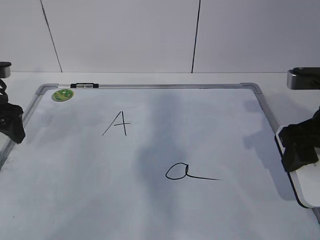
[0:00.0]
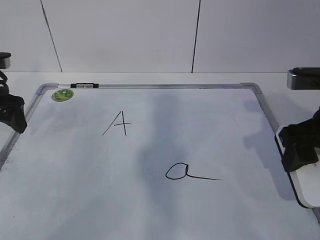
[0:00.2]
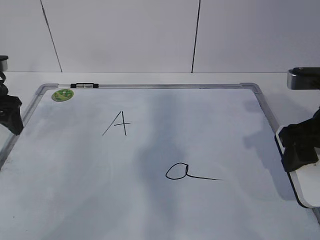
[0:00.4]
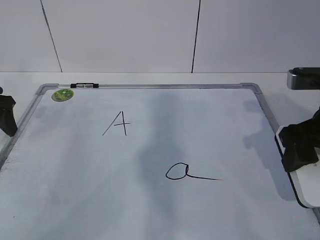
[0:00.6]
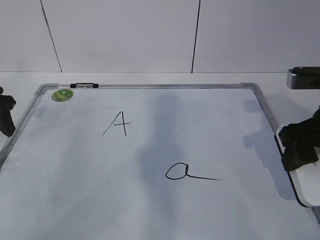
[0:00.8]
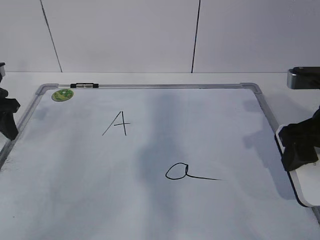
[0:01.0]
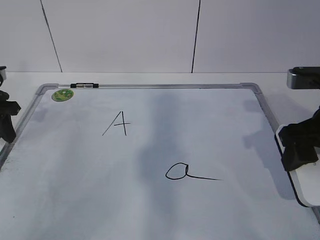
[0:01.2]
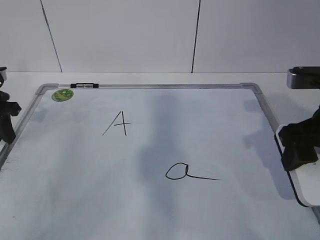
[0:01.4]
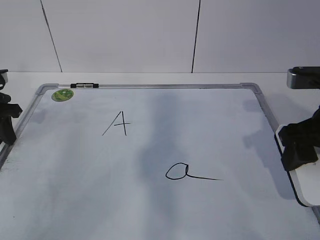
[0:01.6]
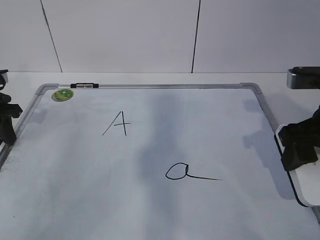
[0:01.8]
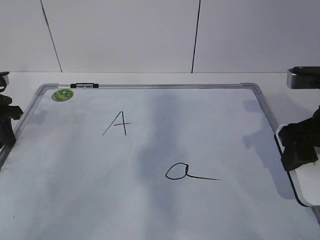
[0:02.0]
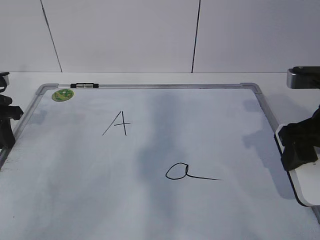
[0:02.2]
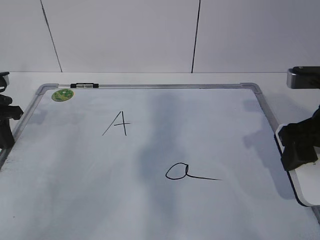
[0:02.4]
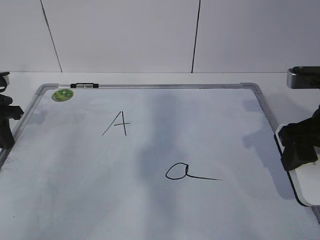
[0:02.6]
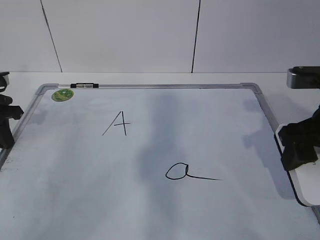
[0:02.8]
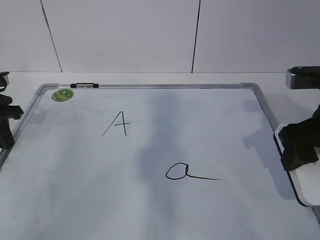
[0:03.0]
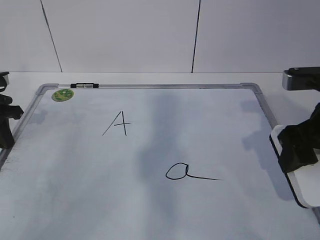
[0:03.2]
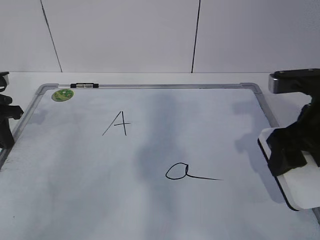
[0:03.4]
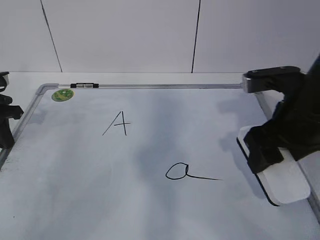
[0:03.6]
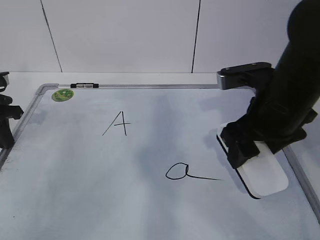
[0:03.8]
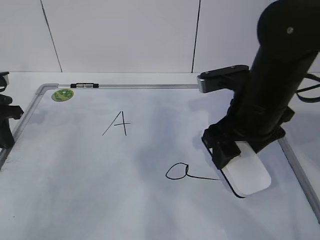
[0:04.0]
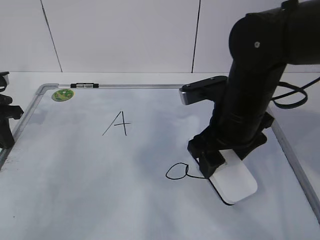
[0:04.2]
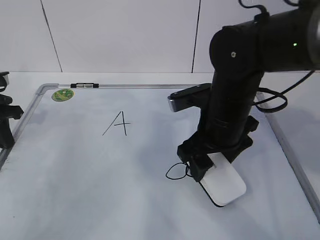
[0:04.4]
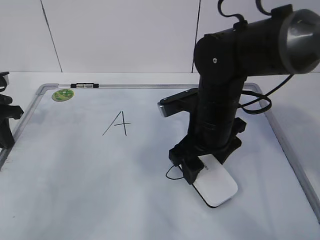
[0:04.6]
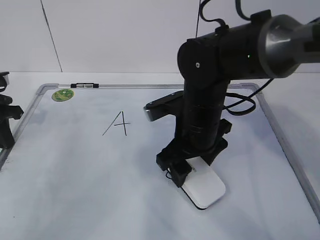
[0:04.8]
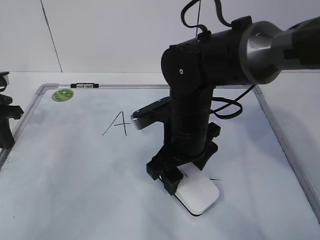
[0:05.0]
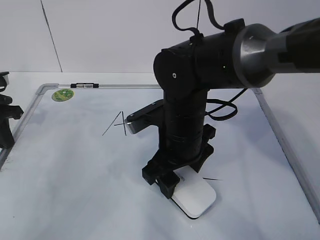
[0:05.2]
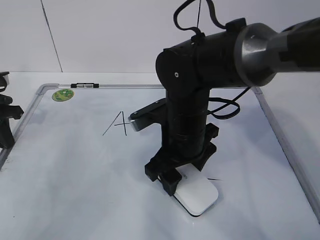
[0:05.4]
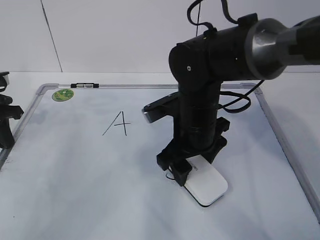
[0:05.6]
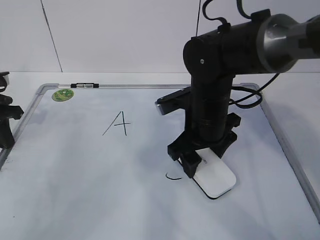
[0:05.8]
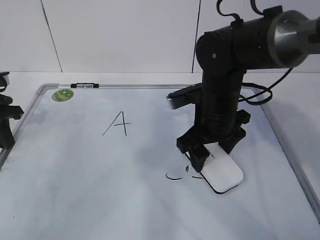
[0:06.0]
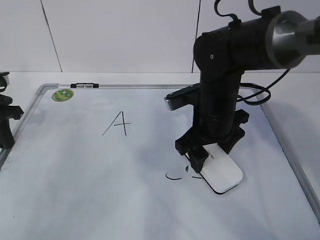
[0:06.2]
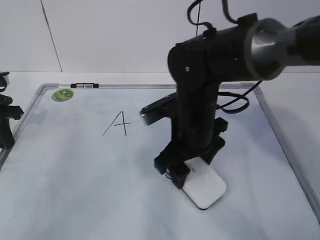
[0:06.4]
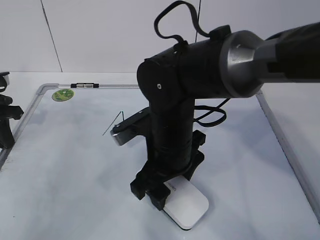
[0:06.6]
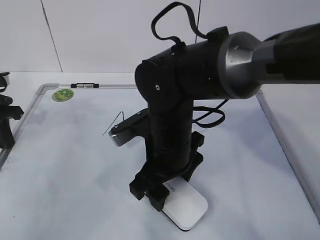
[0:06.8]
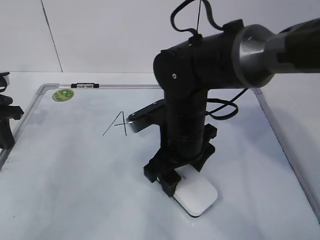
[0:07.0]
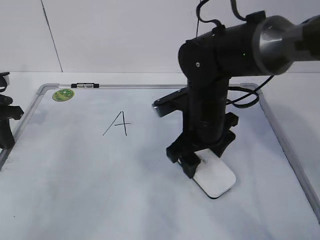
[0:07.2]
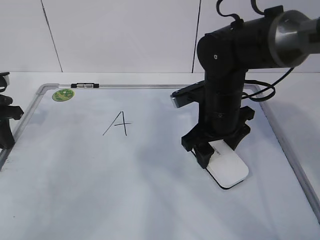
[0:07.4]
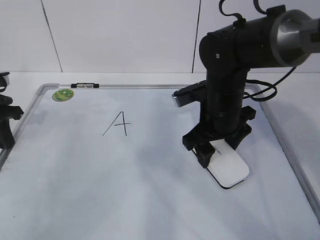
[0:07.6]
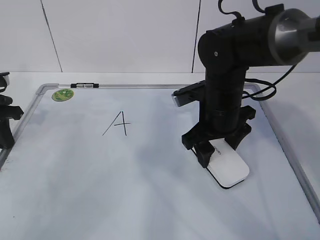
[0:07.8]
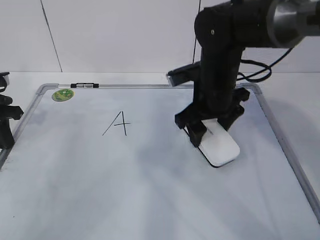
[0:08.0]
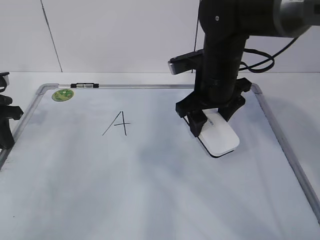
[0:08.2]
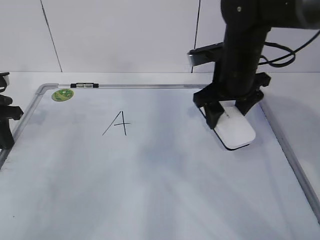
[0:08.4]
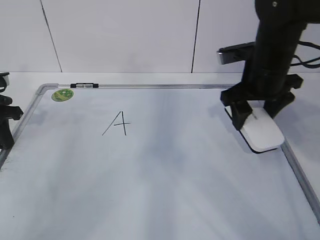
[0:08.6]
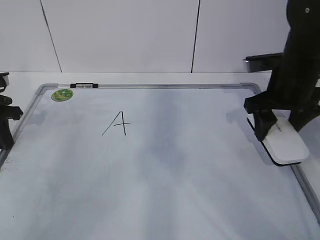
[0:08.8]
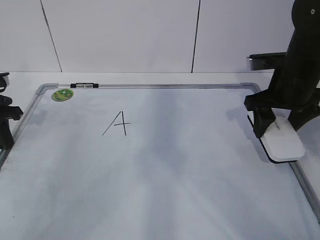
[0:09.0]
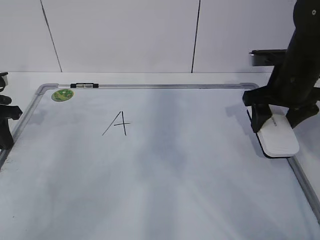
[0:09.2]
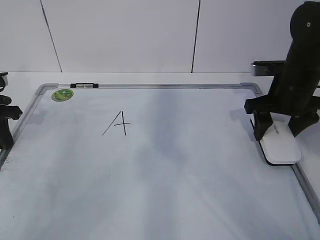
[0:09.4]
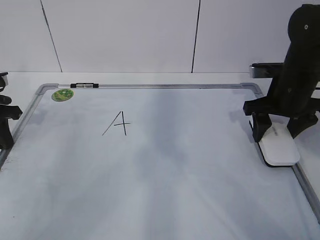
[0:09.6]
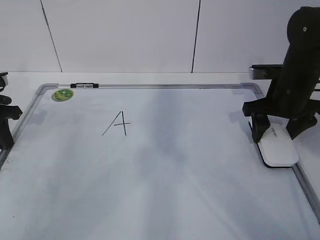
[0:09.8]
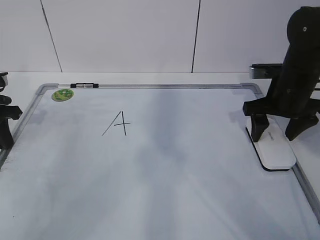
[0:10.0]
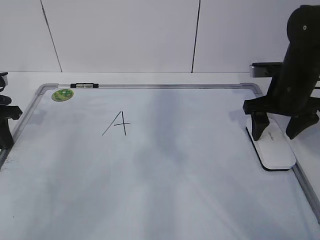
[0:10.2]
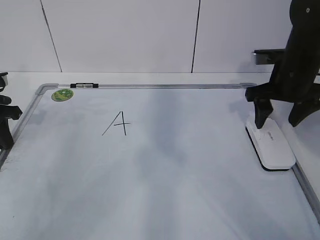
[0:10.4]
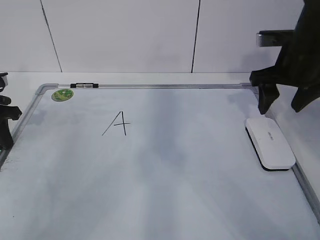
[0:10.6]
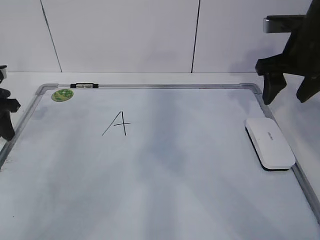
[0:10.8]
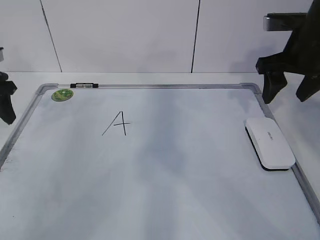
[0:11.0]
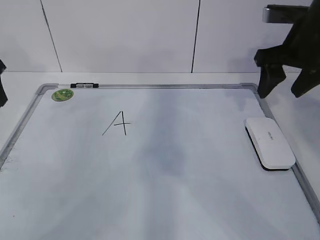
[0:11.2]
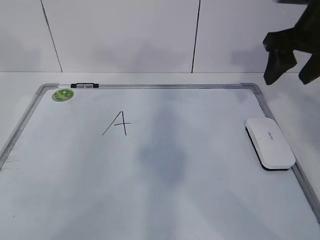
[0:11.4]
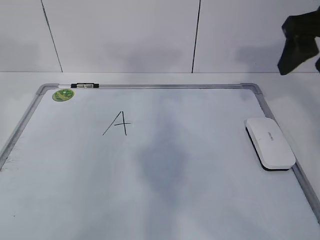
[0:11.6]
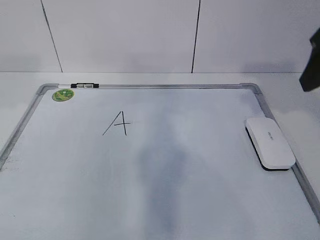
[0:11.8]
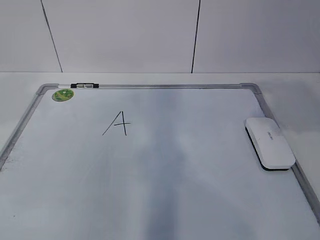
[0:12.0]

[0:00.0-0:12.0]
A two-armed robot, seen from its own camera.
Task of the whole recording: pick up the eraser on the blackboard and erase the letter "a".
Step, 0:02.8 to 0:04.4: Put down the eraser with your right hand.
0:00.0 to 0:01.6: The left gripper closes.
0:03.0 to 0:04.4: The right gripper travels to the left and forward by about 15 cm.
0:06.0 to 0:07.6: The right gripper moves about 10 cm to the left and comes back.
0:07.6 to 0:09.0: The right gripper moves to the right, roughly 10 cm.
0:09.0 to 0:10.4: The grippers make only small movements.
0:10.4 to 0:12.0: The left gripper goes about 25 cm upward and backward, and opens its fingers, while the right gripper goes about 20 cm backward and upward.

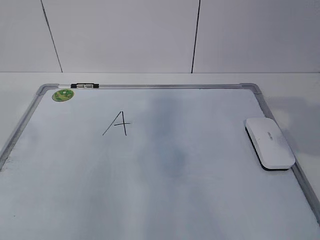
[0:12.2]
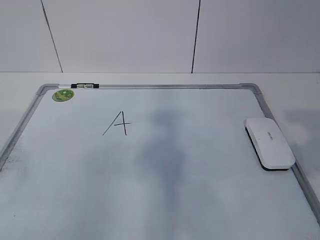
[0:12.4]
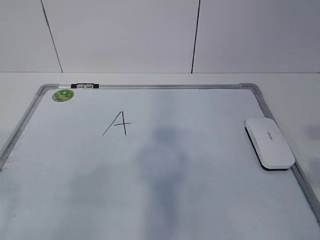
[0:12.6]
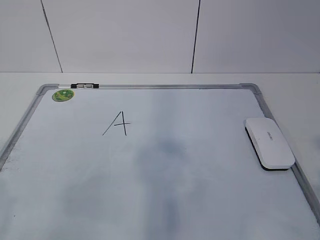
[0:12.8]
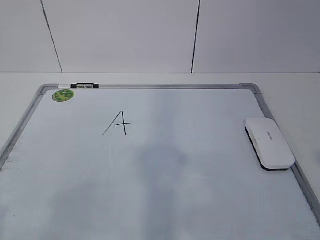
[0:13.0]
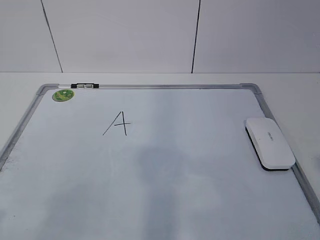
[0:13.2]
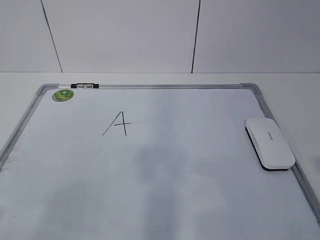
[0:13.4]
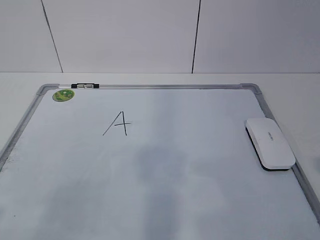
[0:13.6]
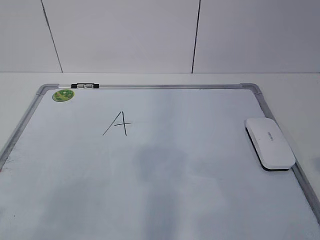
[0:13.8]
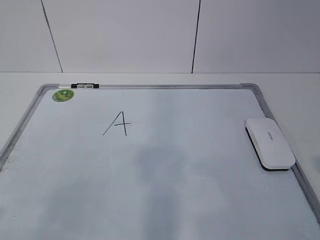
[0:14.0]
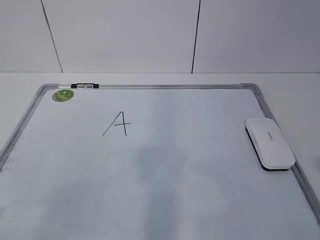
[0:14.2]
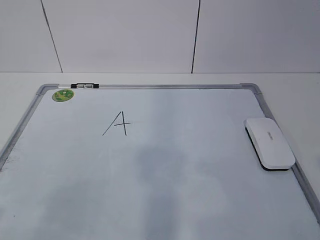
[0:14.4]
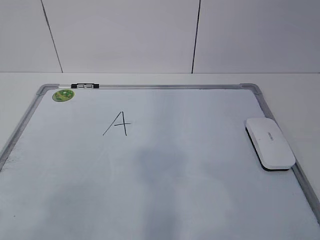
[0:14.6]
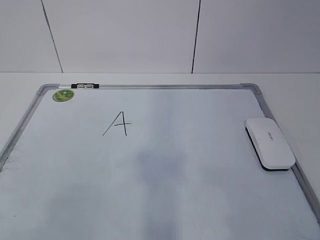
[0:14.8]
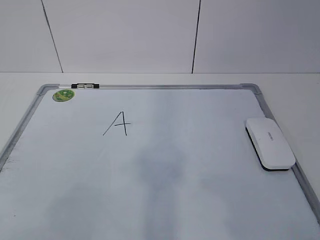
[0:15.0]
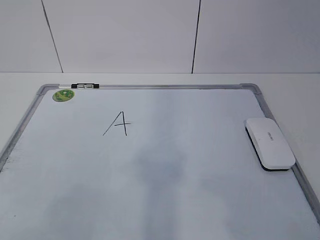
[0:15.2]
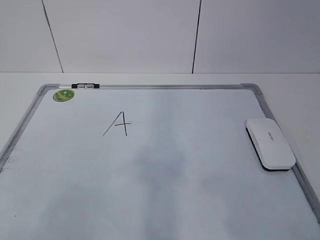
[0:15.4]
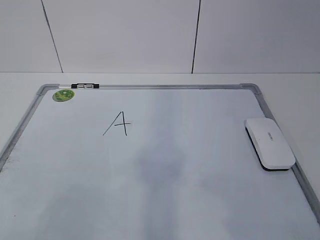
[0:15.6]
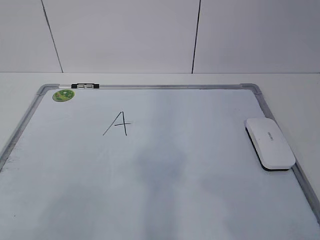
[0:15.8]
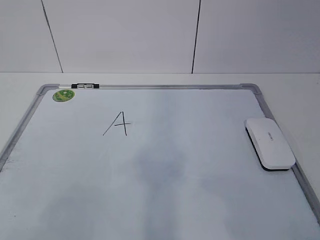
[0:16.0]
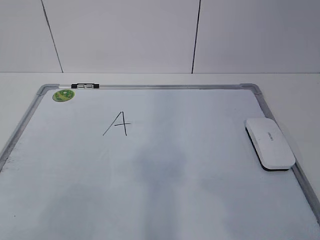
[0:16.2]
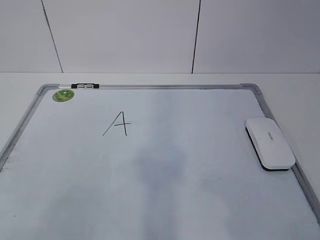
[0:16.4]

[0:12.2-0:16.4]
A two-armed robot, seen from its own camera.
Task of the whole recording: pick up the eraser on the blackboard and erase the letter "a".
0:12.2 to 0:13.6: The two grippers go some 15 cm backward and downward.
0:15.0 to 0:16.4: Neither gripper changes place.

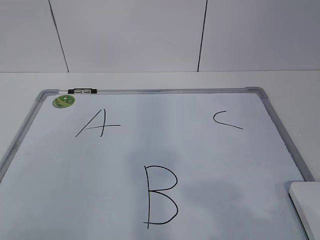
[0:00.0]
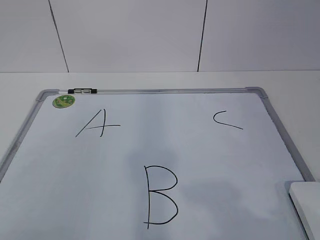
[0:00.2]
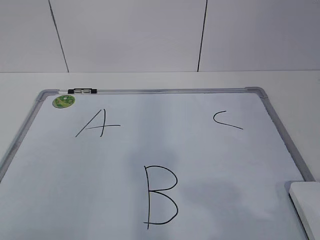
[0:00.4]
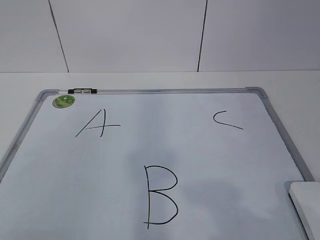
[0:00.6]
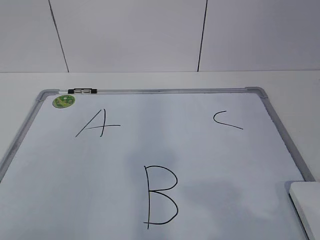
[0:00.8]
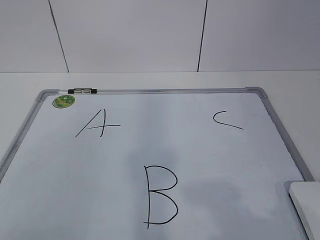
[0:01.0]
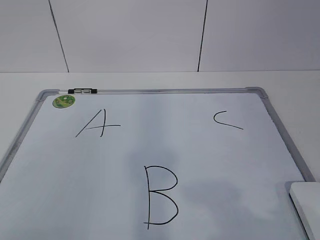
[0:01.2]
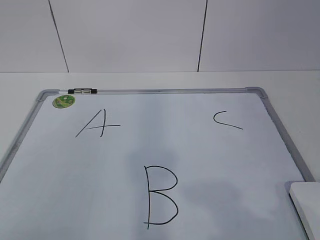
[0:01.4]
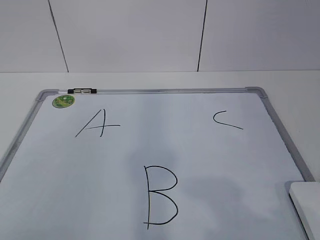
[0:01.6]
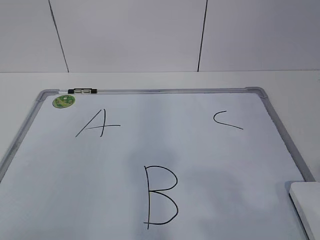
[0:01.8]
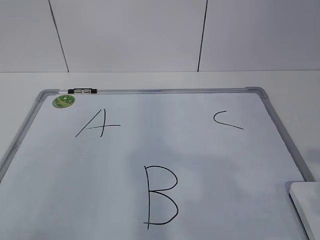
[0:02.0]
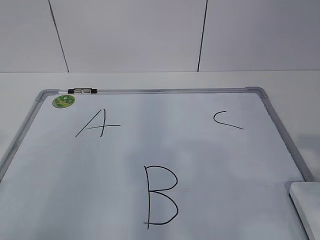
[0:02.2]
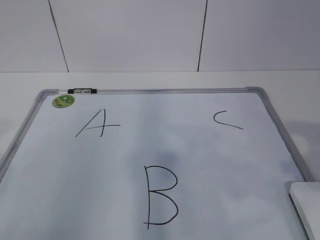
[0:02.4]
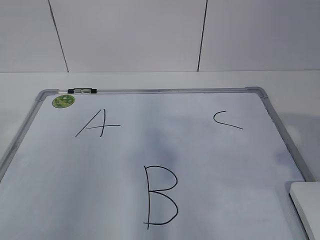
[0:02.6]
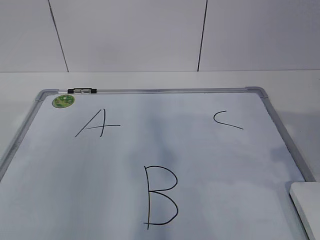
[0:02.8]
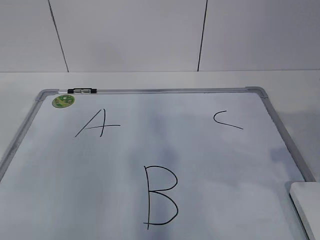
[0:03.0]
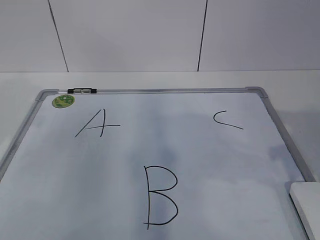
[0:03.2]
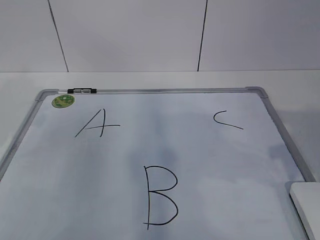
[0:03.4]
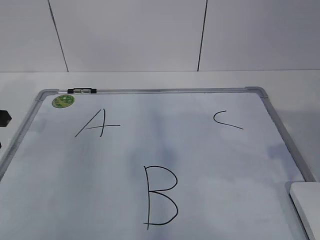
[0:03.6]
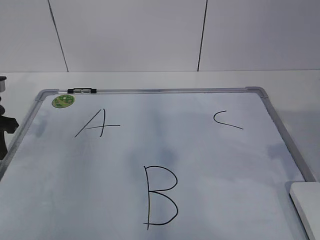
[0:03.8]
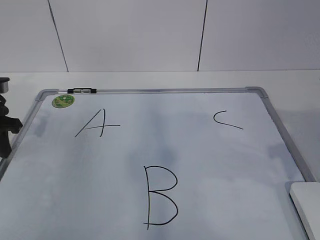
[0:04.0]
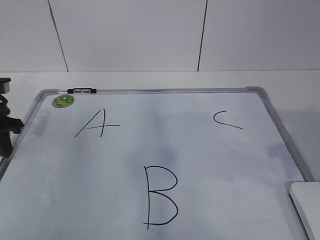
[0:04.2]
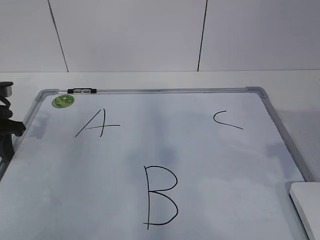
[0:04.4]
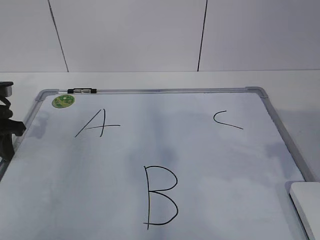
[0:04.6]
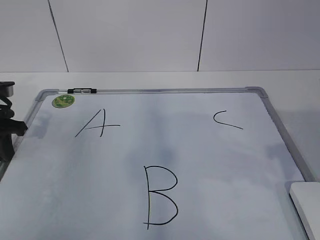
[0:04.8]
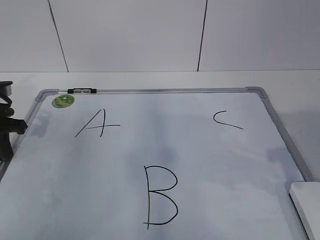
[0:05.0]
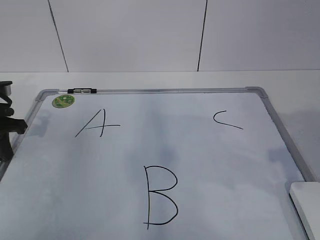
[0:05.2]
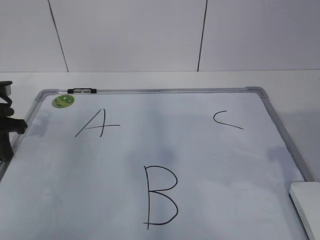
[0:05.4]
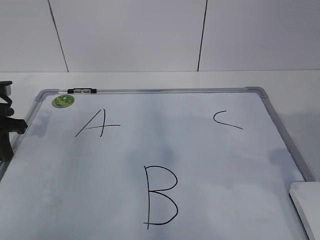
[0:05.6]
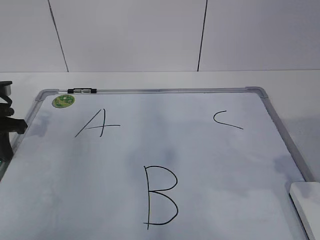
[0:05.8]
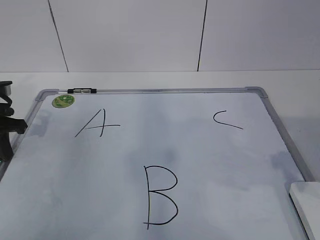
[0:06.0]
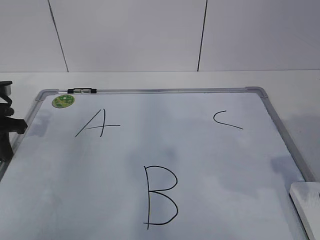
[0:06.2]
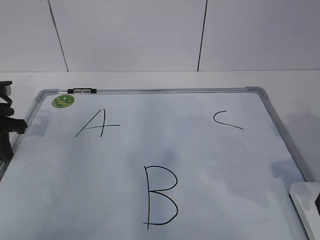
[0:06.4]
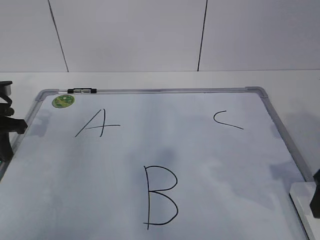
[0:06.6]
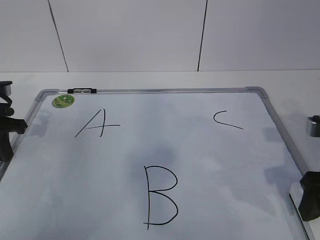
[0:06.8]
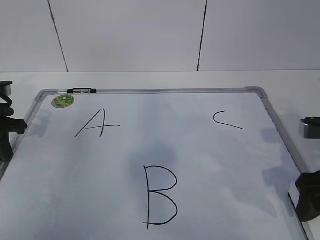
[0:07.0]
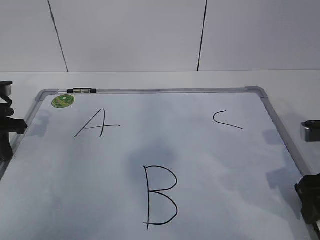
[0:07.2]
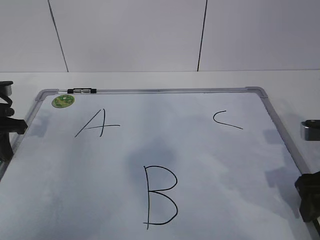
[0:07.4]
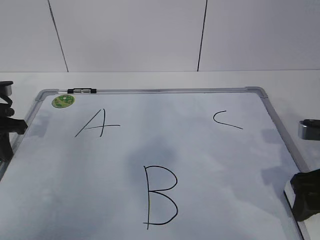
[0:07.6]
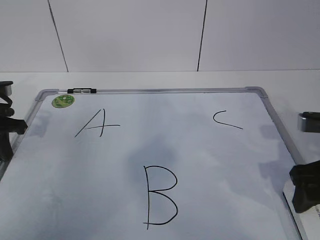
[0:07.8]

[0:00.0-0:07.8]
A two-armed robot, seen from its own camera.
Task of the whole recording: pick up the eraser on the blackboard and erase the letter "B".
0:01.6 to 0:03.2: The right gripper travels forward by roughly 15 cm, while the left gripper goes roughly 30 cm forward.
0:03.2 to 0:04.6: The left gripper shifts approximately 15 cm downward and forward.
0:06.2 to 0:07.8: The right gripper shifts by roughly 5 cm.
